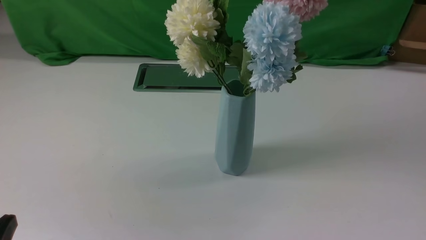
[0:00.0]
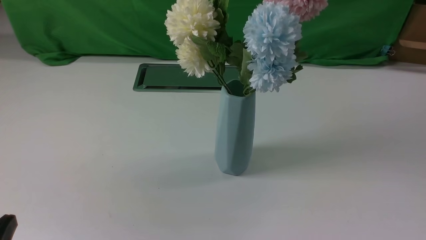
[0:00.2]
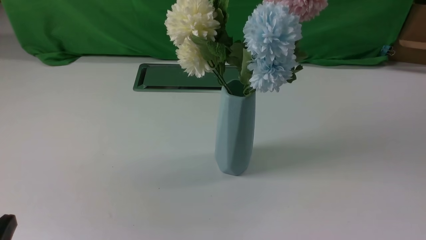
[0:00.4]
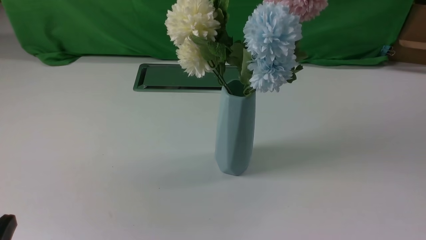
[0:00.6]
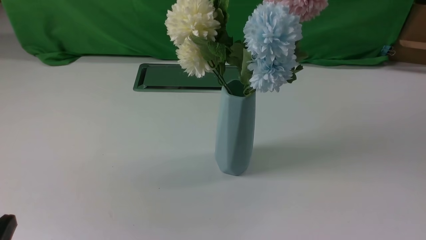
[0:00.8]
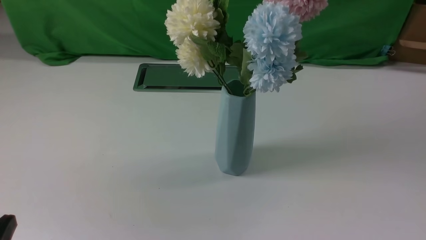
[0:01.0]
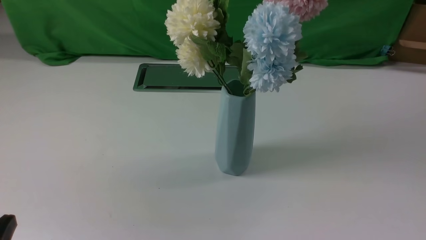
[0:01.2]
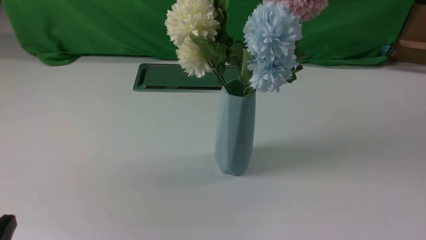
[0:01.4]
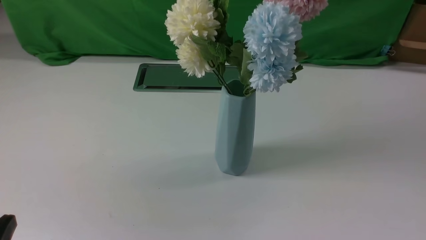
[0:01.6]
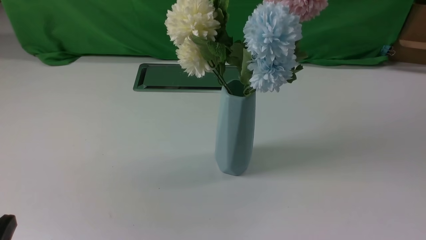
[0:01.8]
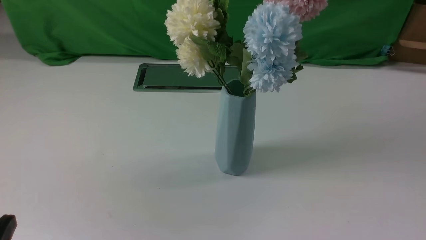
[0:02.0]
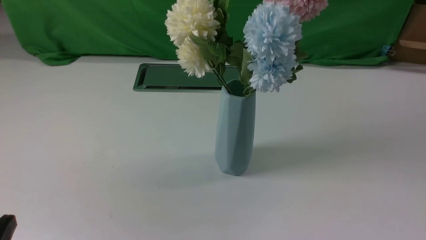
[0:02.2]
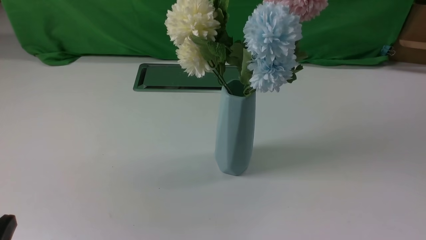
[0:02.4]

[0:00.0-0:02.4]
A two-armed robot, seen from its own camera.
Task of the whole recording: insert the flowers into the vase on the white table.
0:01.2 to 0:02.4: Neither gripper changes place.
